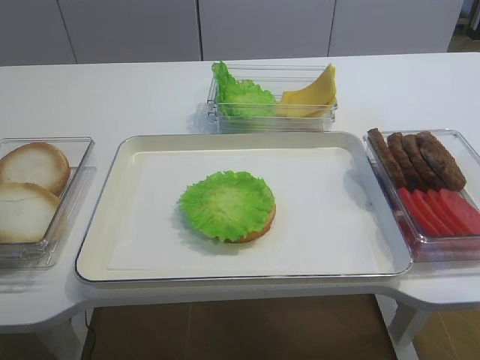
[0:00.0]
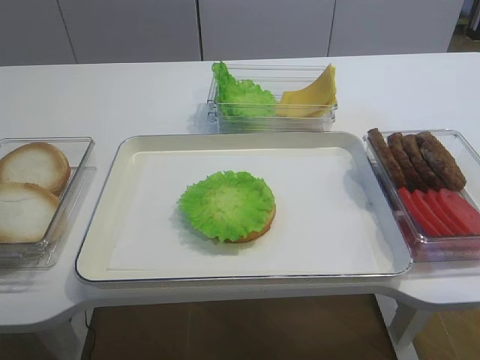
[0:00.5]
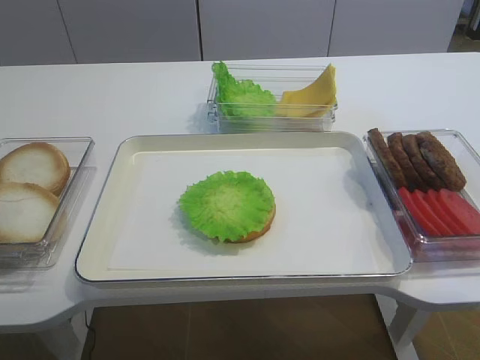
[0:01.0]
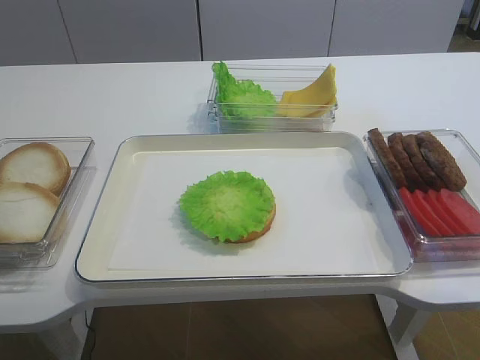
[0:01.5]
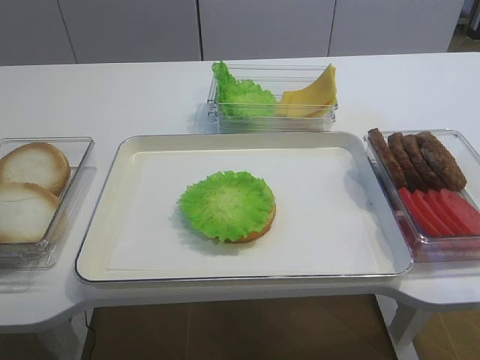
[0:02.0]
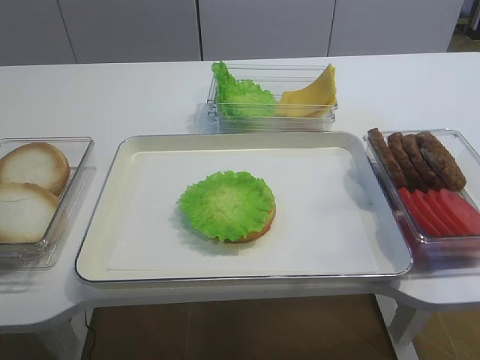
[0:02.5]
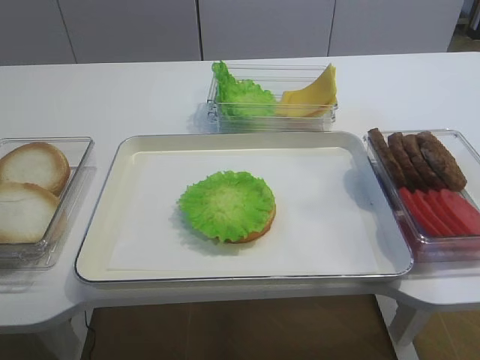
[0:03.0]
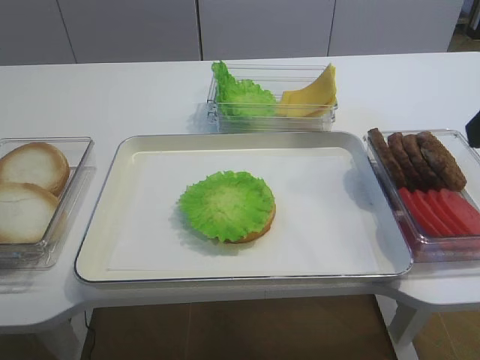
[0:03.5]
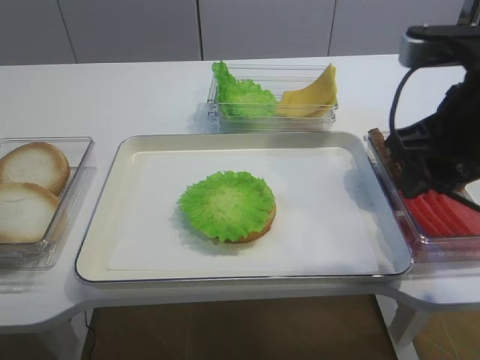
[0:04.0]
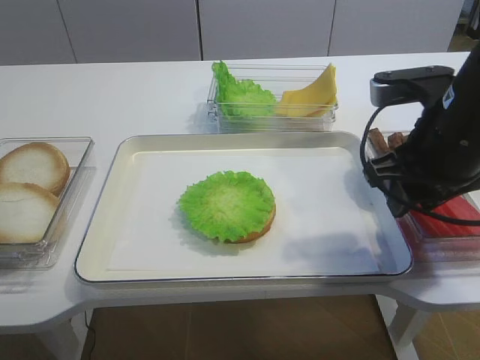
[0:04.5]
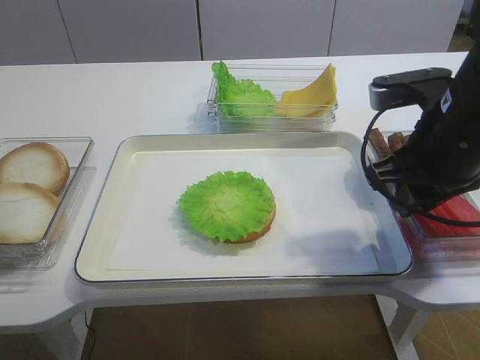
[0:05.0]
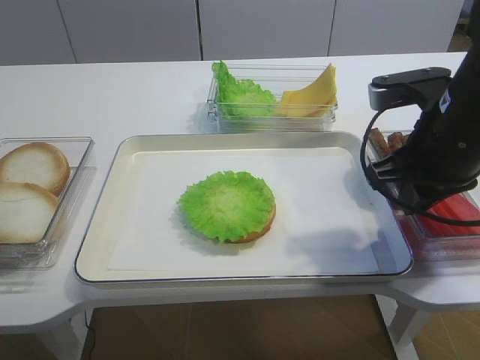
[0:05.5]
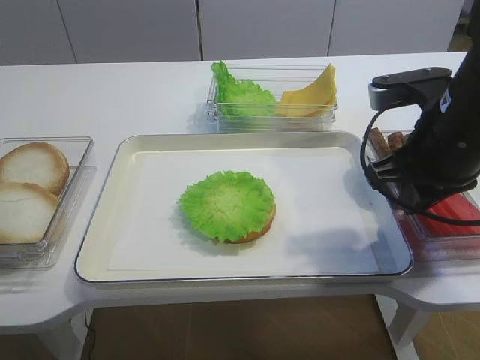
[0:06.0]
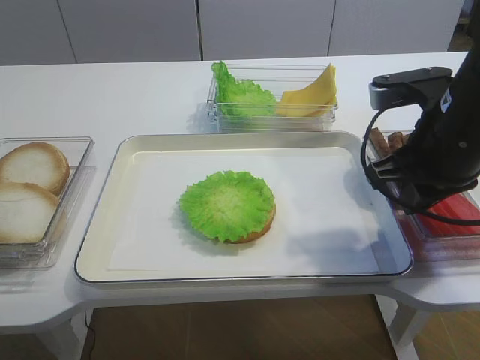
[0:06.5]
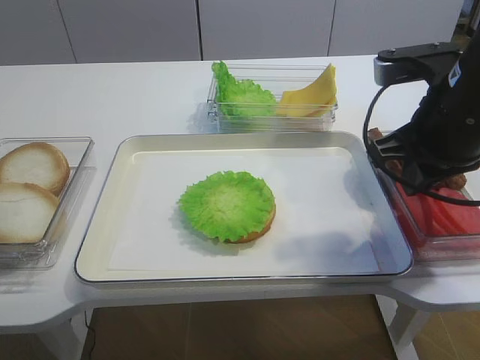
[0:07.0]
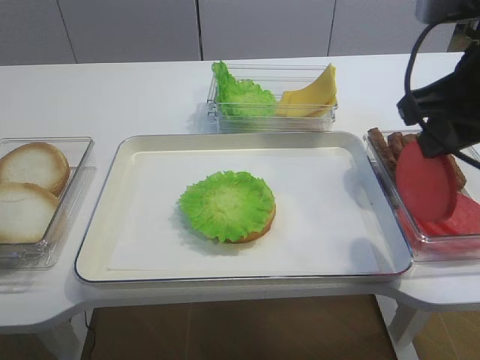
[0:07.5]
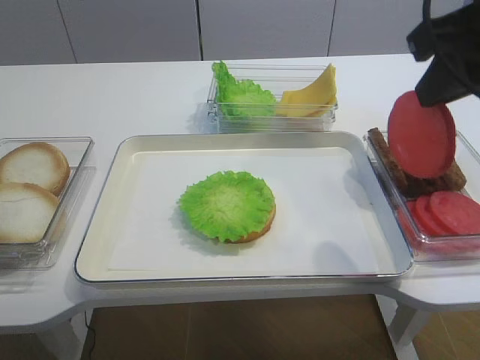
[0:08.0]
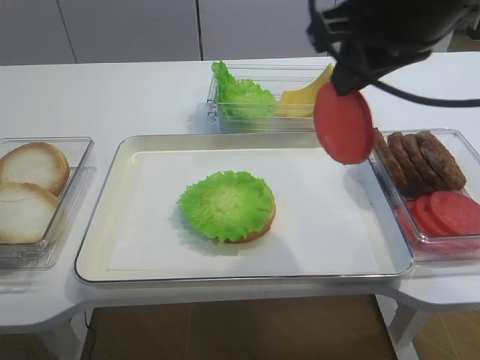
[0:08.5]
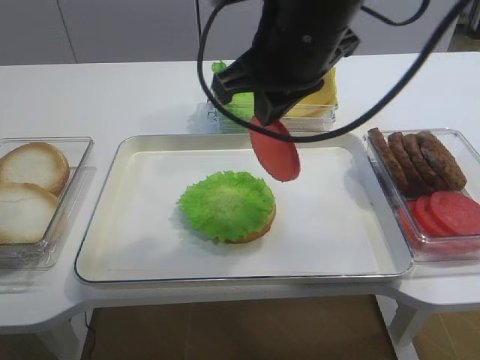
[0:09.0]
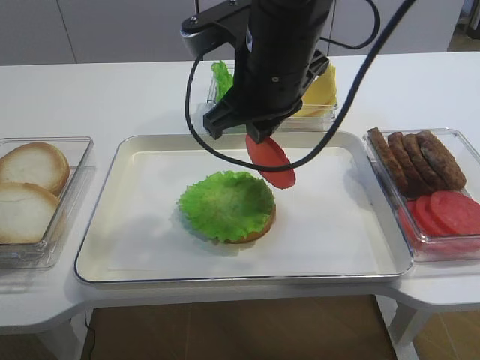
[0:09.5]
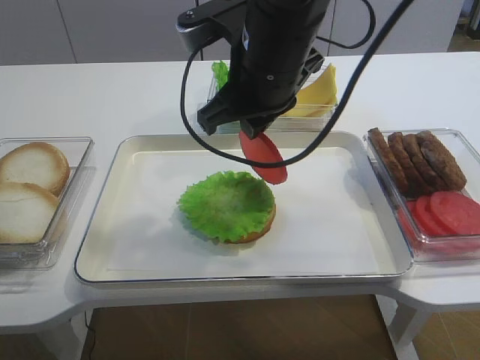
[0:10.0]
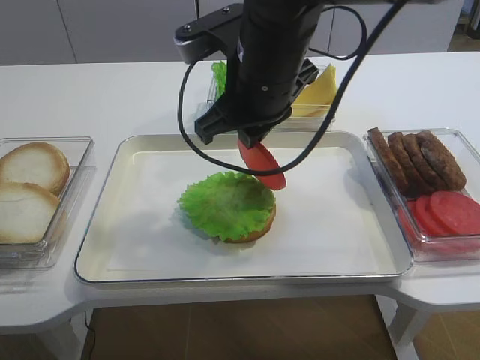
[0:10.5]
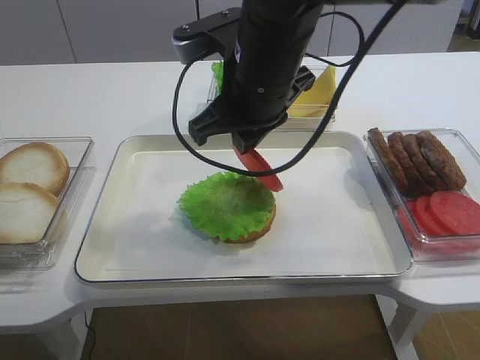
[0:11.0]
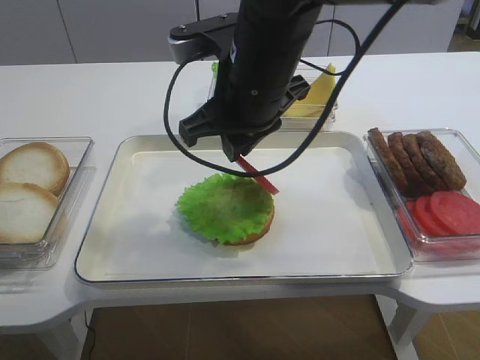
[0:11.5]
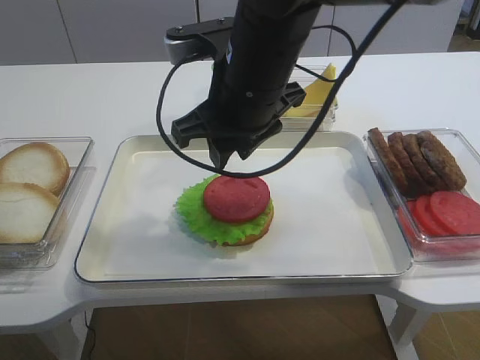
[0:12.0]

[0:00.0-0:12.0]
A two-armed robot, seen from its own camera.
Step, 0:00.0 to 0:07.0: Pick up the tomato slice with the right gripper.
Step, 0:07.5 to 0:11.5: Place the tomato slice on the lettuce leaf with the right gripper.
0:02.0 to 0:04.0: The right gripper shifts roughly 25 cm forward.
0:04.0 to 0:06.0: The right gripper moves approximately 5 cm, and closes up.
0:06.0 to 0:08.0: The right gripper shifts roughly 10 cm upward.
0:08.0 to 0:10.0: The right gripper travels to the left, forward and downward by about 20 cm.
0:10.0 to 0:12.0: The right gripper opens its fingers.

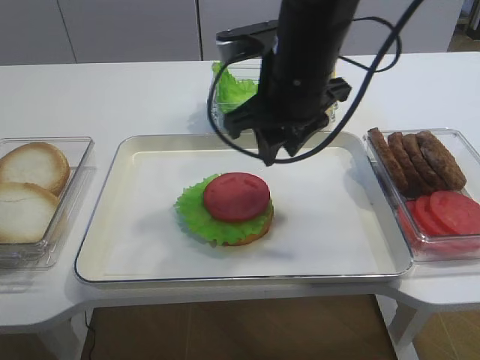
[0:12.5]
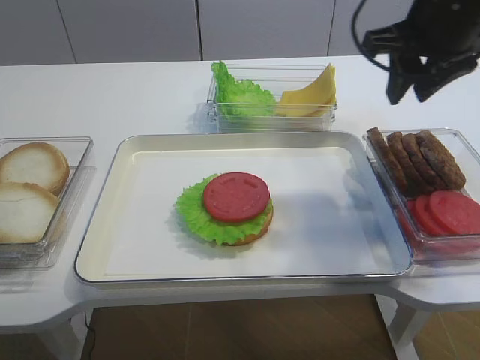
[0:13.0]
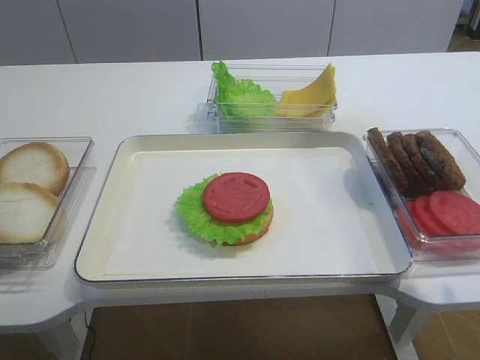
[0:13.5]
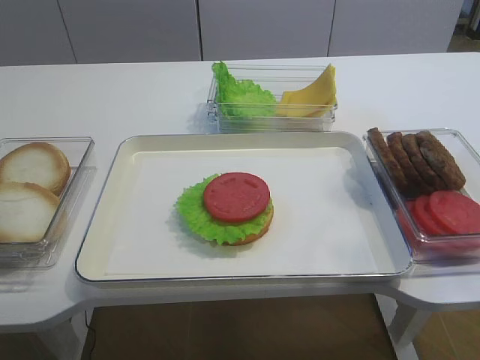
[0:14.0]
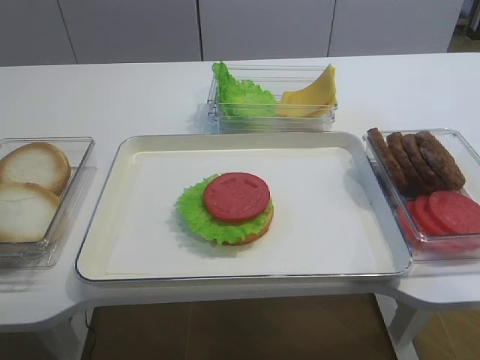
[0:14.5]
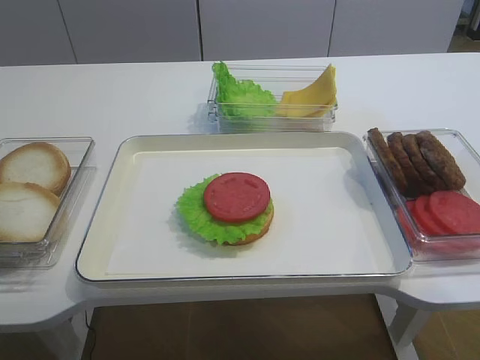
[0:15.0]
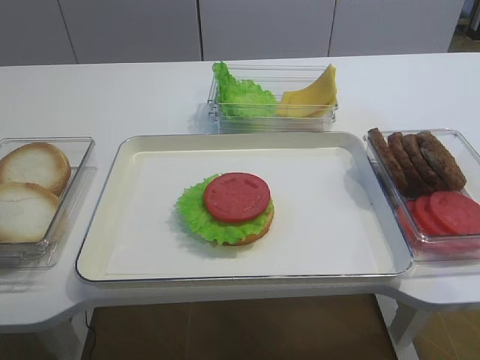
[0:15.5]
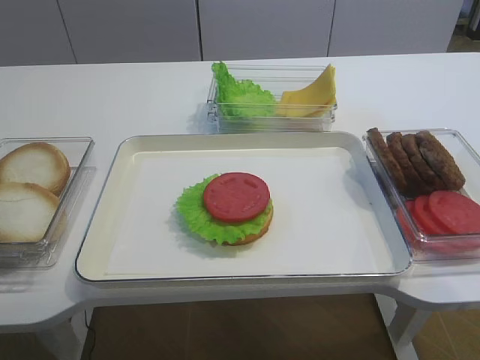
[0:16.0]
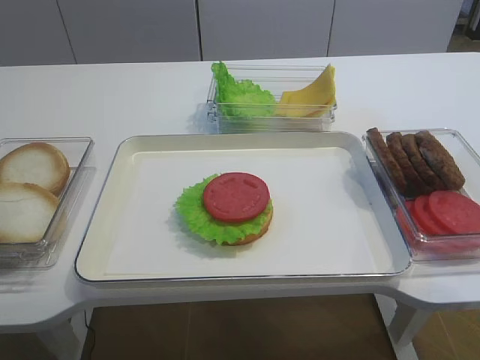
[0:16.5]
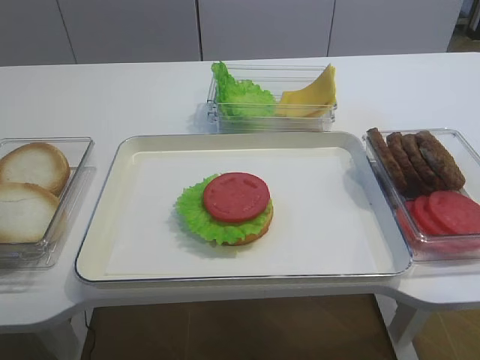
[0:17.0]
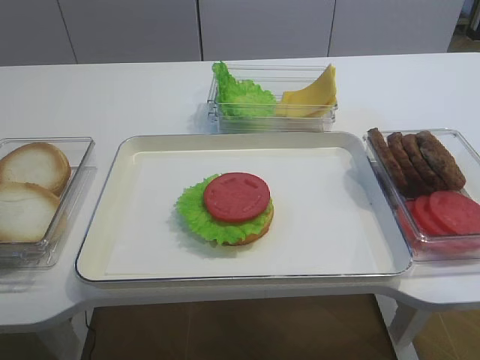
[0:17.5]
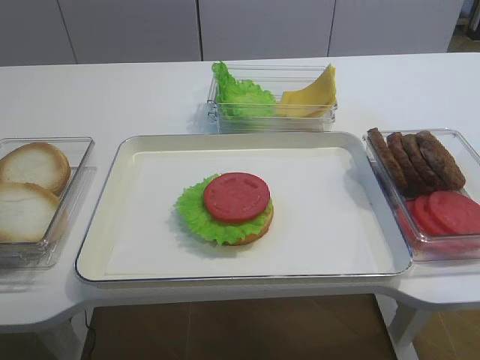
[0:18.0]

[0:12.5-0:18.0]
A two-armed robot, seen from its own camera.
0:12.5 to 0:14.5: The right gripper shifts roughly 40 cm backward and to the right.
